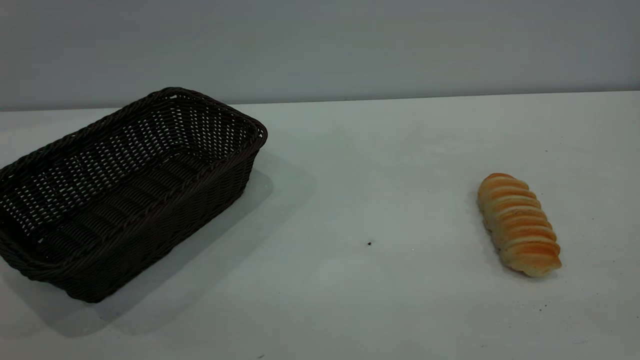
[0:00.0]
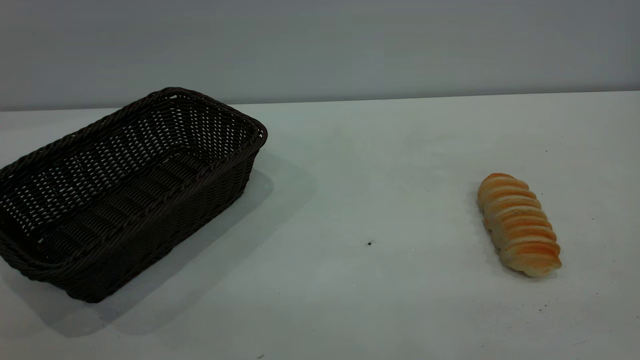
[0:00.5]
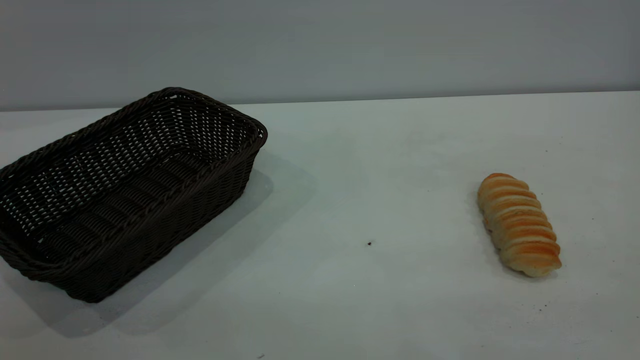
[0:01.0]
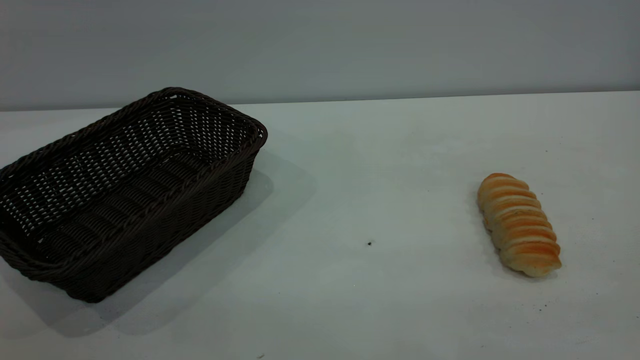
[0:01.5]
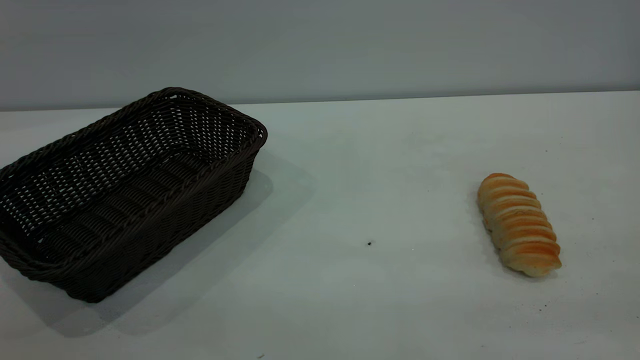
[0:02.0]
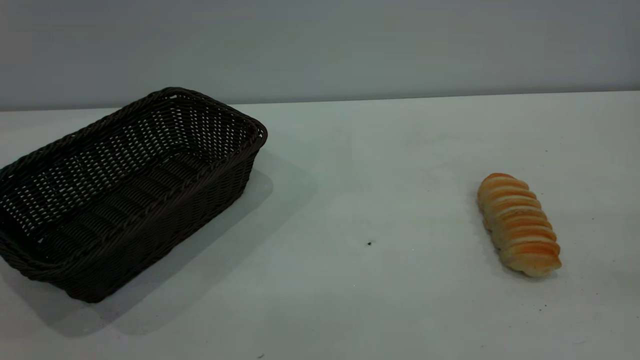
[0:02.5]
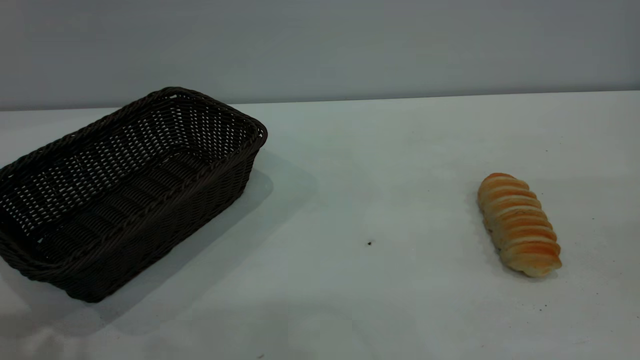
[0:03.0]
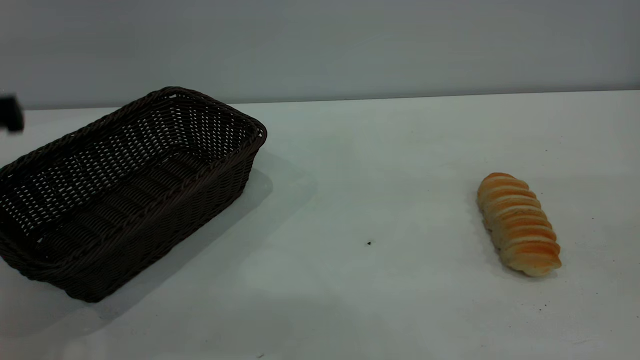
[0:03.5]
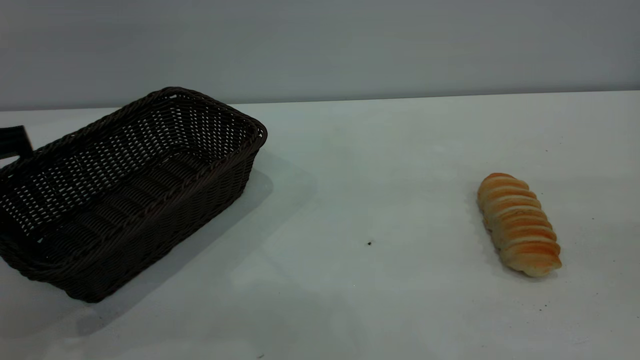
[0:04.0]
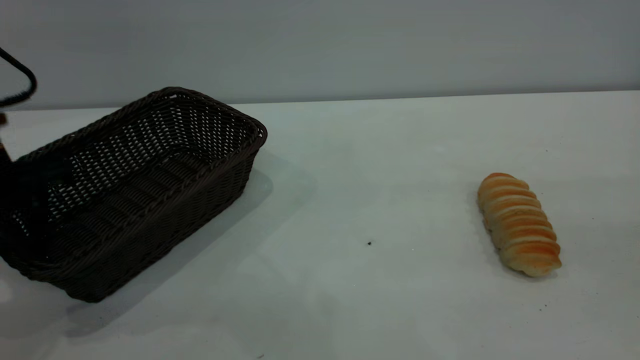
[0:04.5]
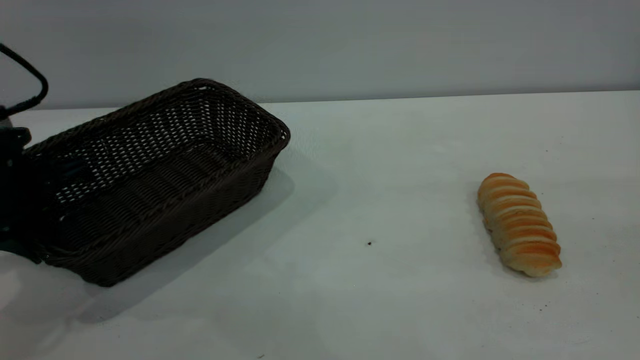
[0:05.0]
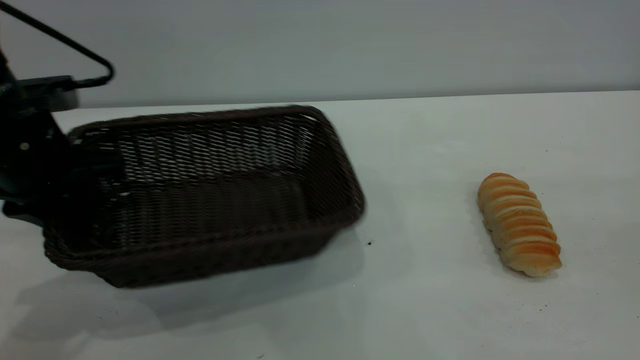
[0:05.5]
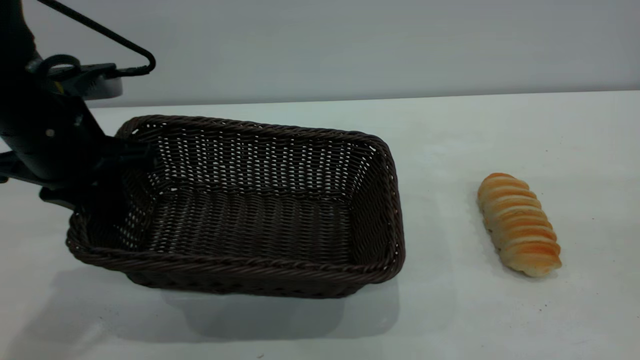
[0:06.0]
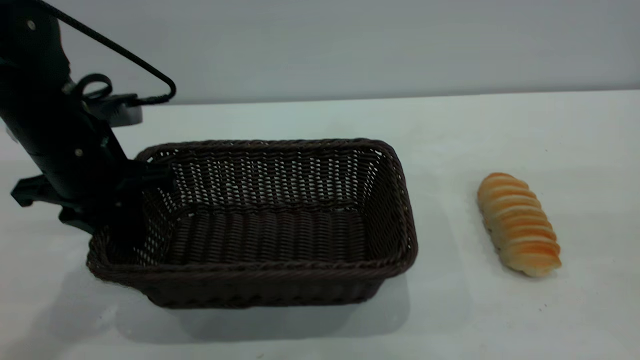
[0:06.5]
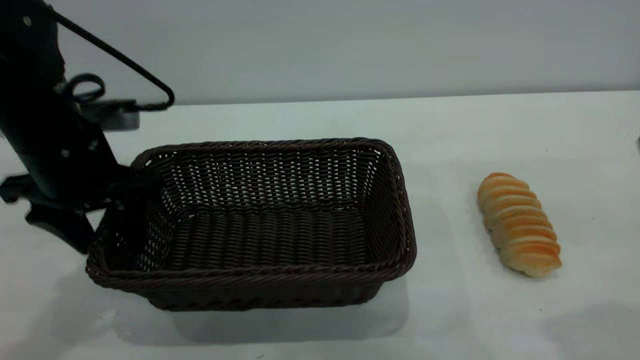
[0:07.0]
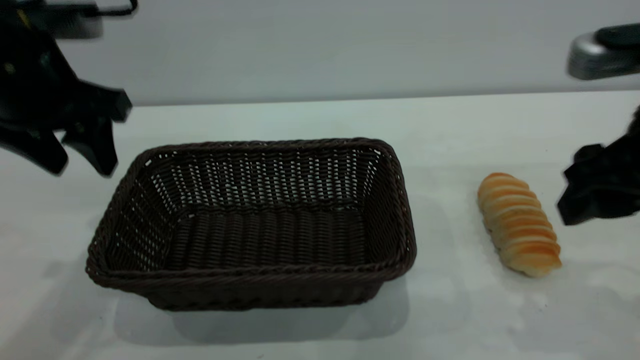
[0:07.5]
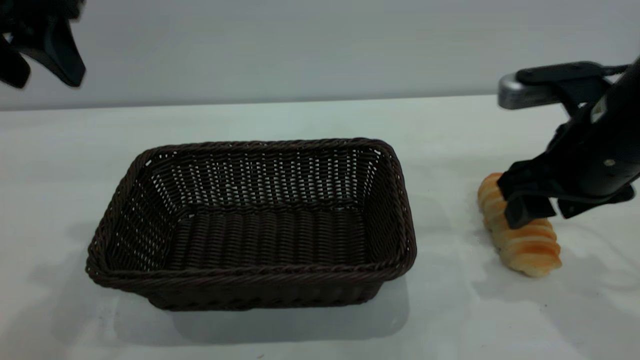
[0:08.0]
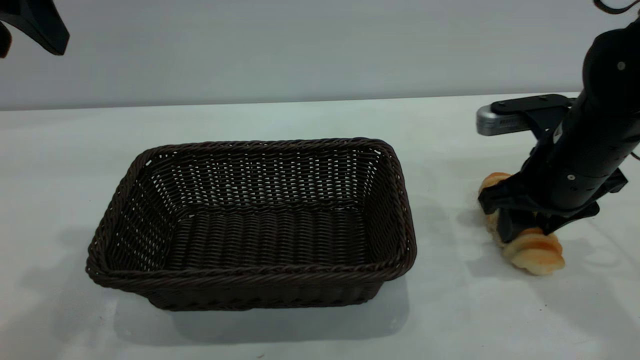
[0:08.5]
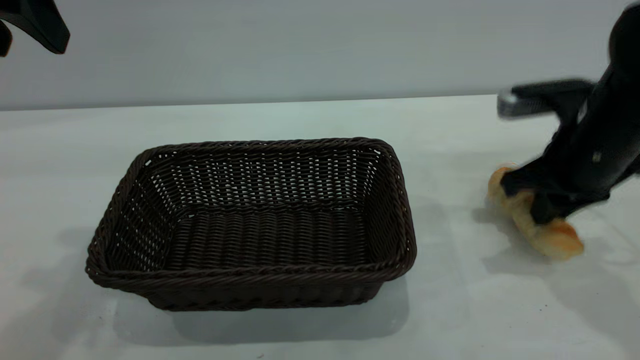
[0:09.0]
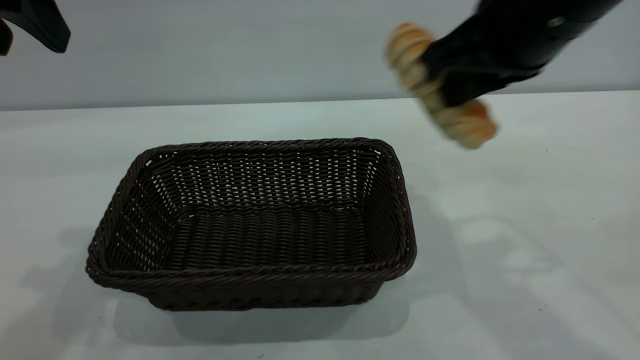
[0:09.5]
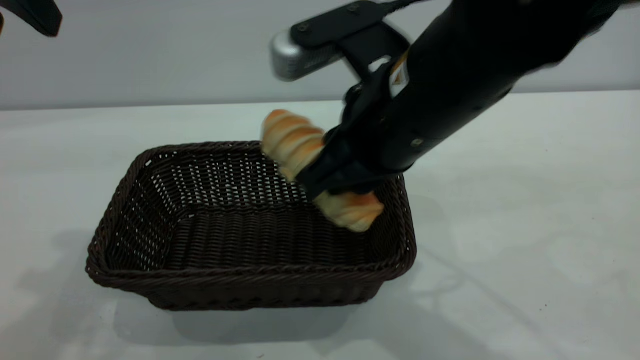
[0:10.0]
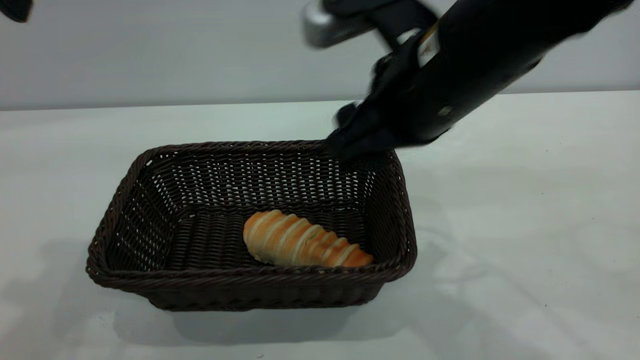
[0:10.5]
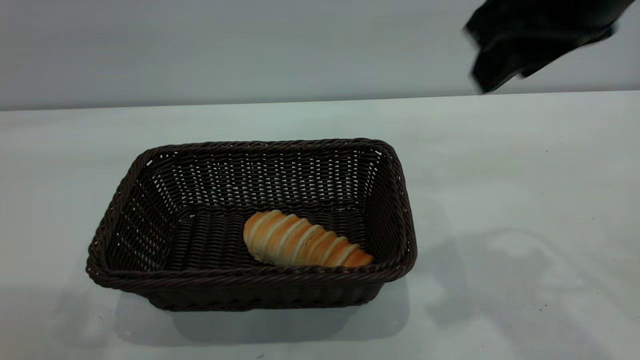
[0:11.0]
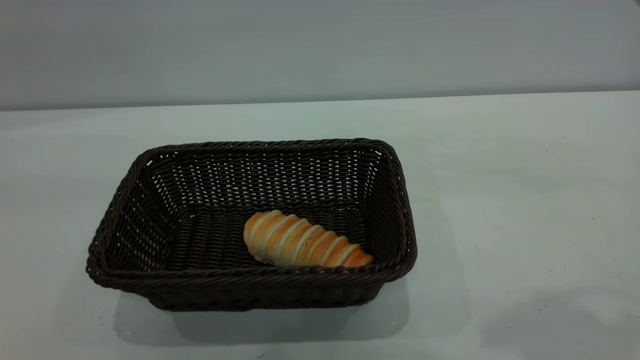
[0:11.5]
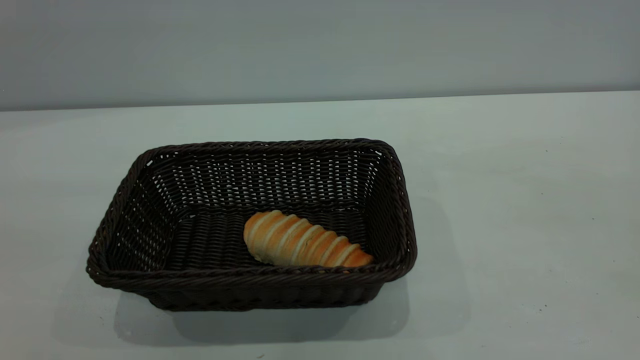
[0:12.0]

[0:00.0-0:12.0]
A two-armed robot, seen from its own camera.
Task of the whole recording: One hand grasps the black basket and places it in the middle of the table, while the other hand picks up the long bread and puts it into the black basket.
Step, 0:00.0 to 0:07.0: Move the basket to the center of view.
Step, 0:09.5 to 0:10.5: place the bread into the basket.
0:04.0 to 0:06.0: The left gripper goes approximately 5 cm to the right, and closes up.
0:06.0 to 0:08.0: The right gripper travels forward and downward by approximately 25 cm. Meanwhile the left gripper moves upward, approximately 15 cm, and opens its fingers.
0:08.0 to 0:10.0: The right gripper travels to the left by about 15 cm, and closes its fingers.
0:10.0 to 0:12.0: The left gripper travels backward by some 25 cm; the right gripper shifts some 35 cm upward, to the right and backward, and opens its fingers.

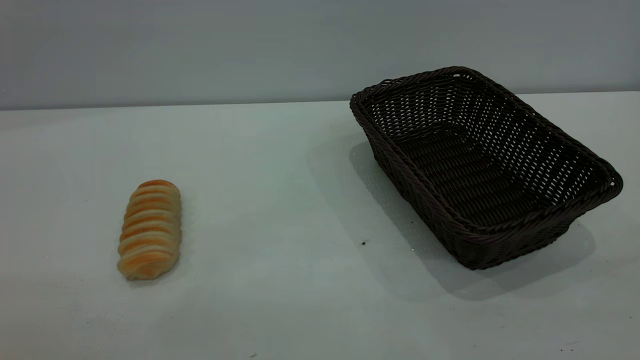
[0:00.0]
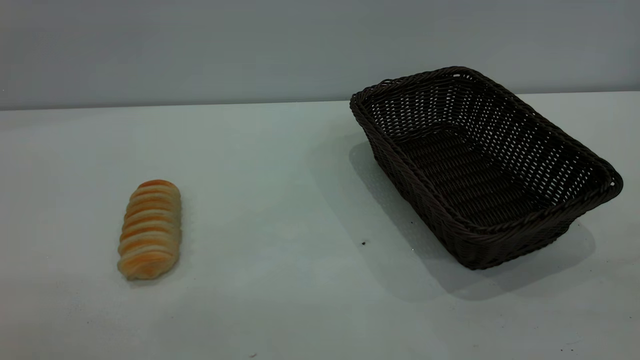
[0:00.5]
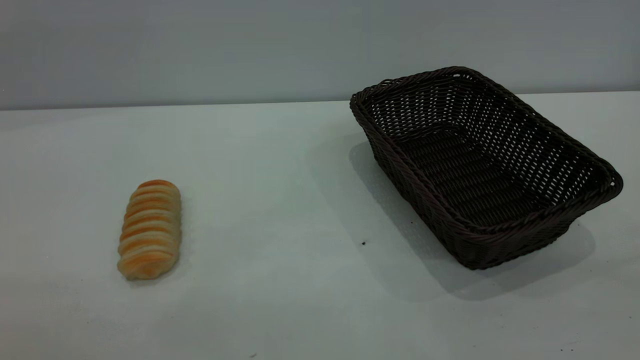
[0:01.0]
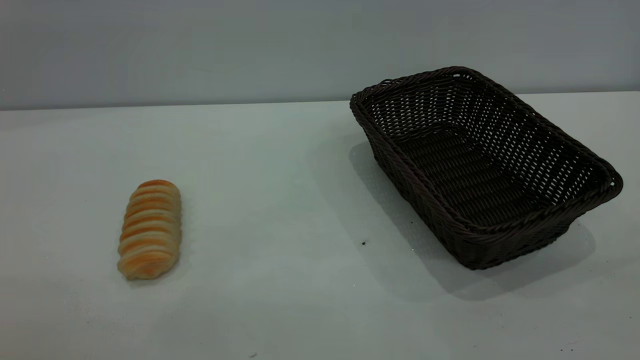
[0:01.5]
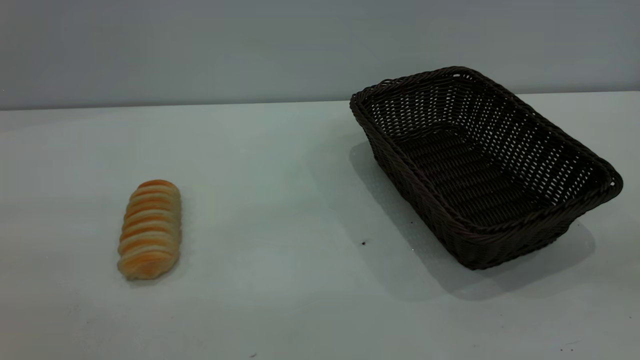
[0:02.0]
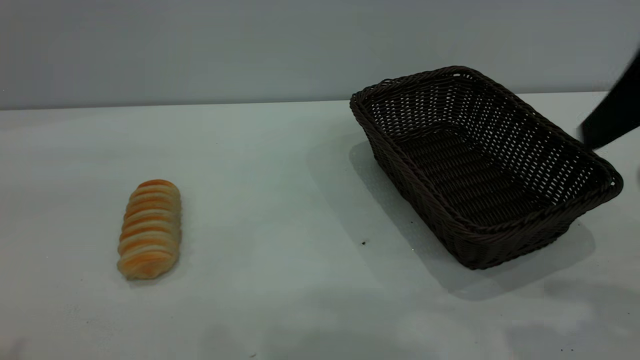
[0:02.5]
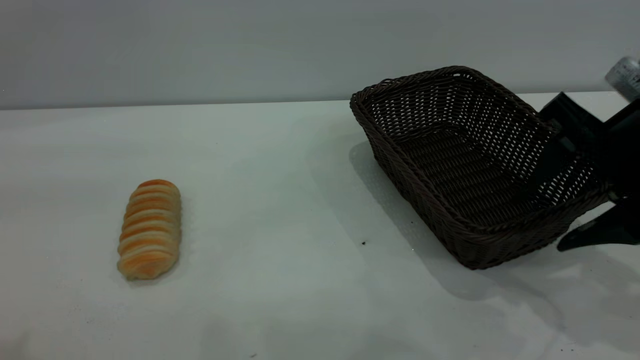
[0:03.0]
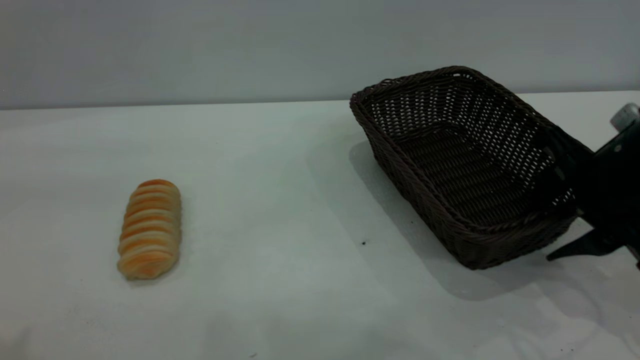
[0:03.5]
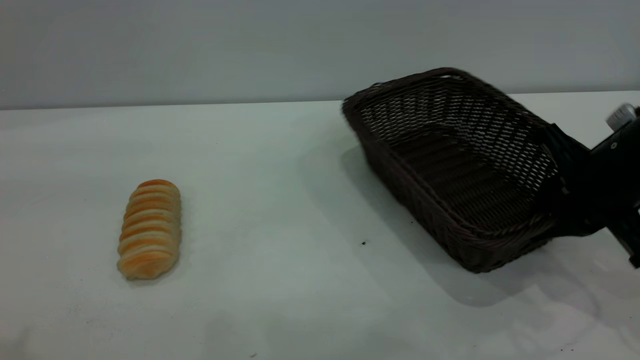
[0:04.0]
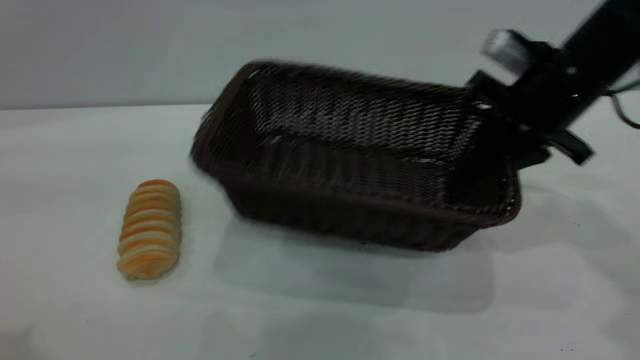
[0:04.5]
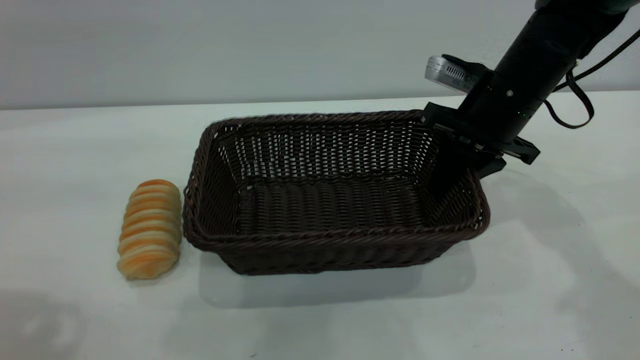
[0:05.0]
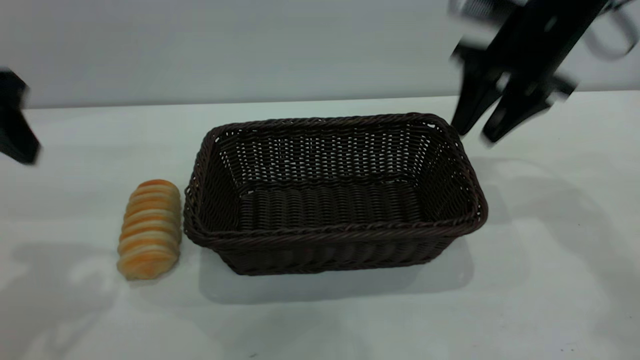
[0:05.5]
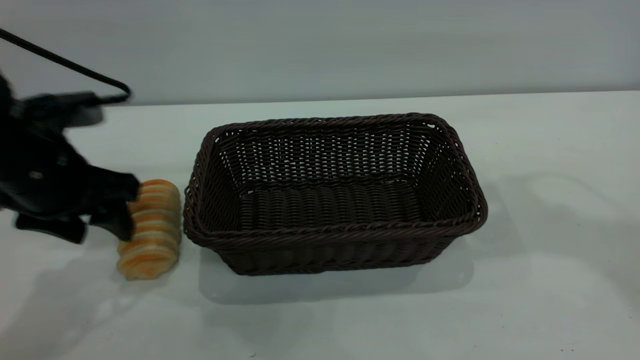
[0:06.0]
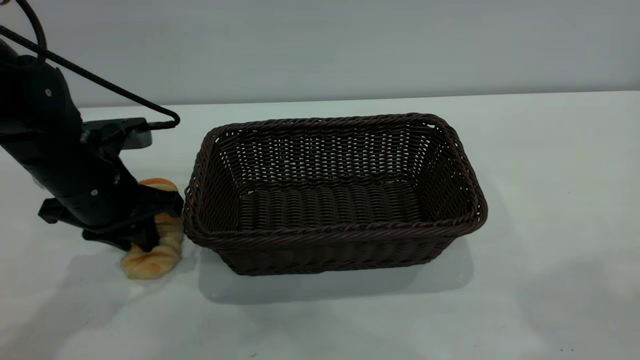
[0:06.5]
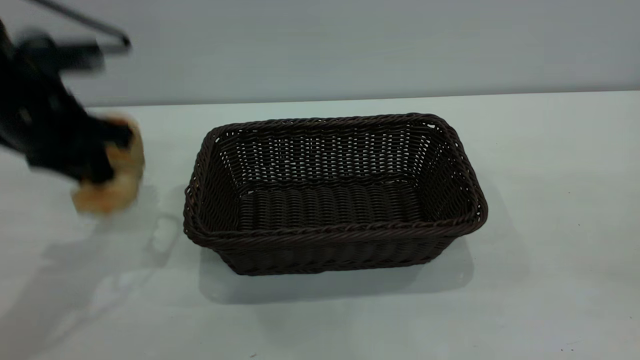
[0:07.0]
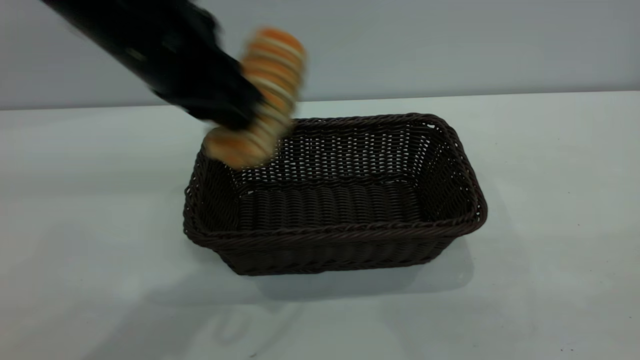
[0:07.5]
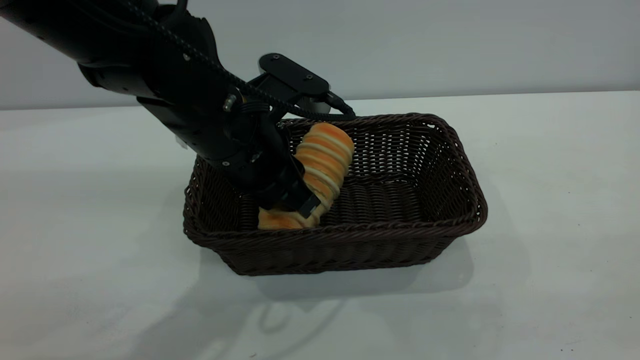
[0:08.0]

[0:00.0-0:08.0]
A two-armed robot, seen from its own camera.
Task of the whole recording: One hand grasps the black basket and places it in the middle of the table, while the other hand picks up the long bread and puts it into the black basket.
Step, 0:00.0 to 0:05.5: Move the basket to the center of view.
0:02.0 to 0:04.0: The left gripper travels forward by approximately 10 cm; the right gripper is displaced forward and downward by some 35 cm, and closes up.
0:04.0 to 0:06.0: The right gripper is displaced upward by approximately 30 cm, and opens up. Meanwhile the left gripper travels downward and forward by some 30 cm.
0:06.0 to 0:08.0: The left gripper is displaced to the right by about 15 cm, and closes up; the right gripper is displaced backward by about 35 cm.
